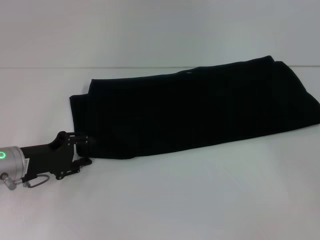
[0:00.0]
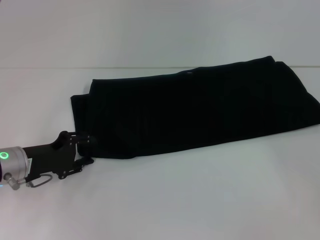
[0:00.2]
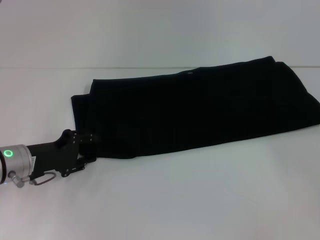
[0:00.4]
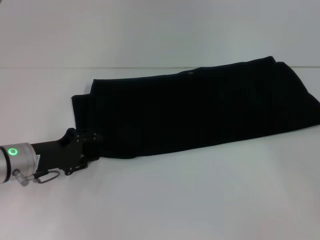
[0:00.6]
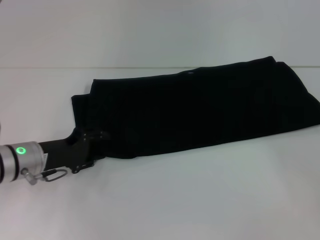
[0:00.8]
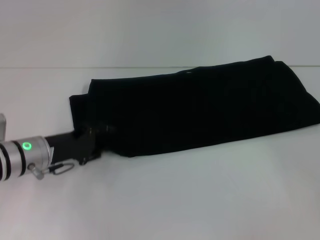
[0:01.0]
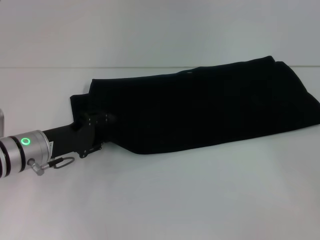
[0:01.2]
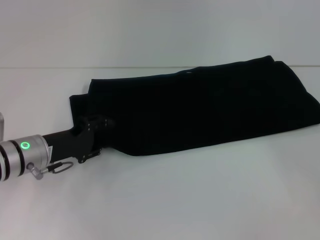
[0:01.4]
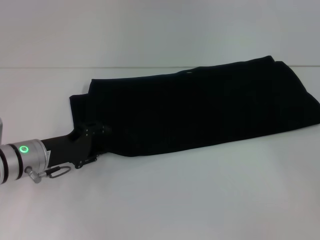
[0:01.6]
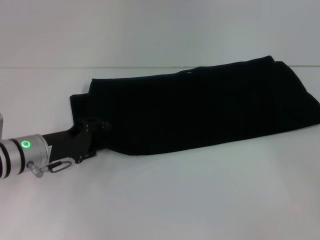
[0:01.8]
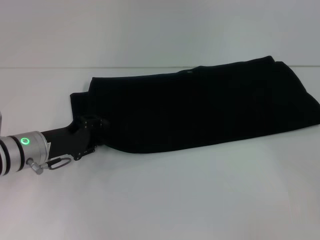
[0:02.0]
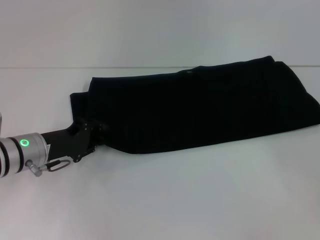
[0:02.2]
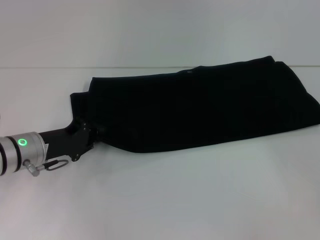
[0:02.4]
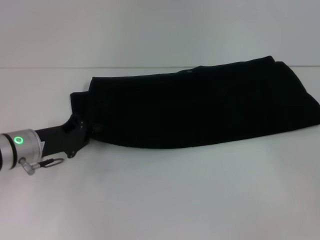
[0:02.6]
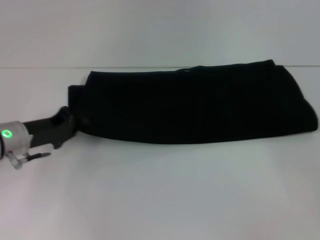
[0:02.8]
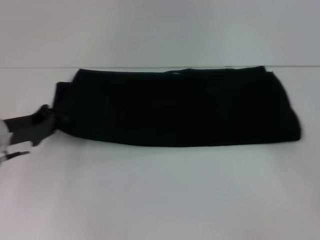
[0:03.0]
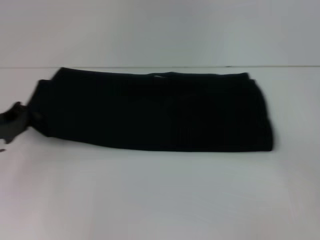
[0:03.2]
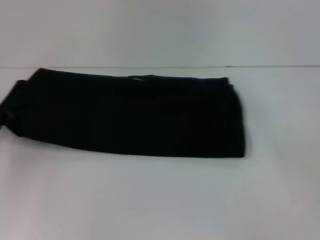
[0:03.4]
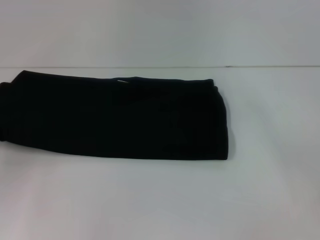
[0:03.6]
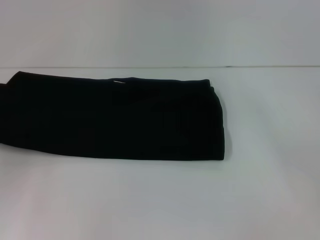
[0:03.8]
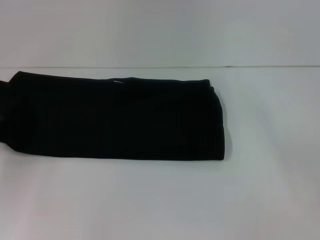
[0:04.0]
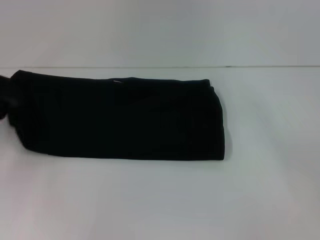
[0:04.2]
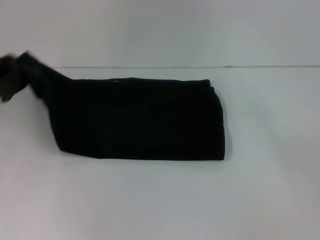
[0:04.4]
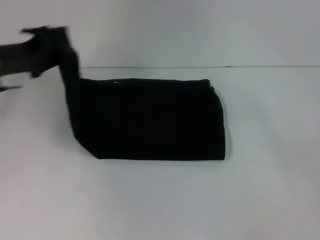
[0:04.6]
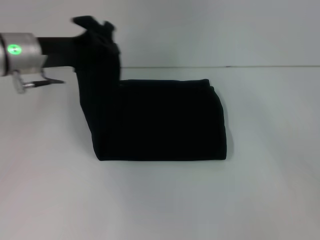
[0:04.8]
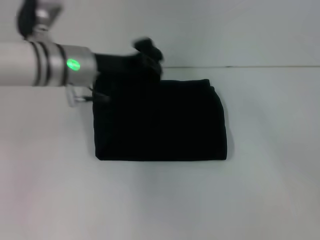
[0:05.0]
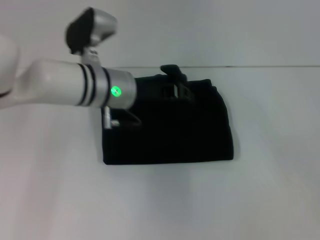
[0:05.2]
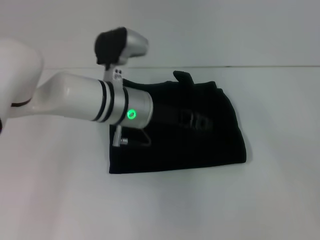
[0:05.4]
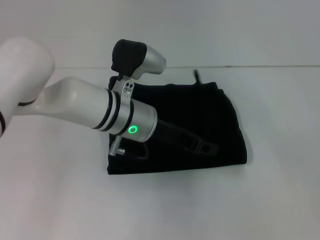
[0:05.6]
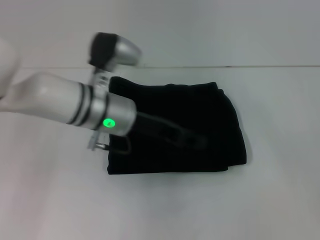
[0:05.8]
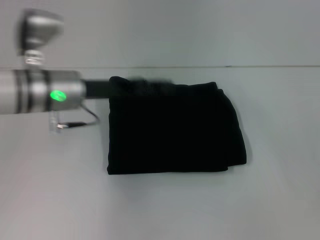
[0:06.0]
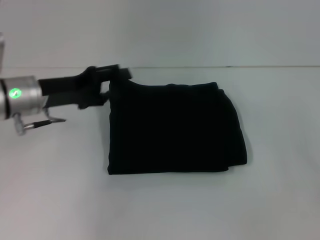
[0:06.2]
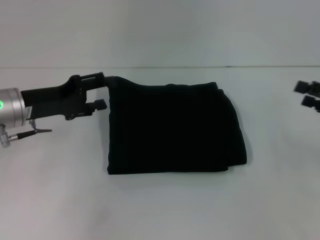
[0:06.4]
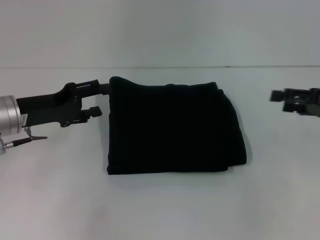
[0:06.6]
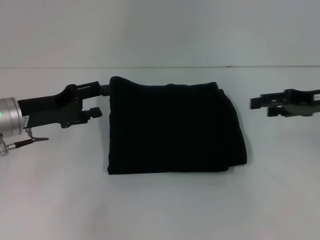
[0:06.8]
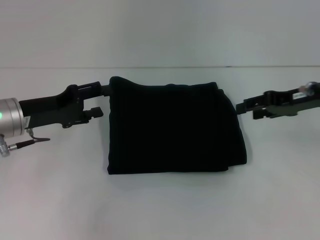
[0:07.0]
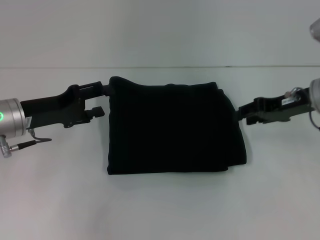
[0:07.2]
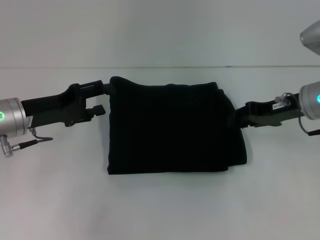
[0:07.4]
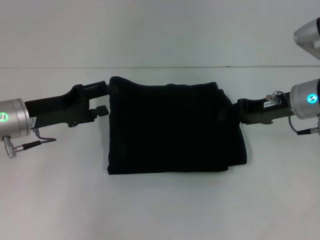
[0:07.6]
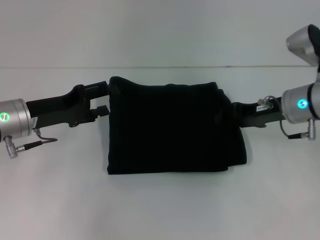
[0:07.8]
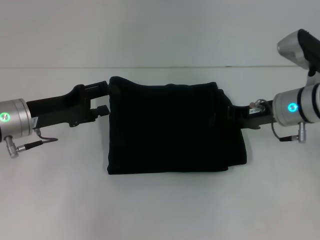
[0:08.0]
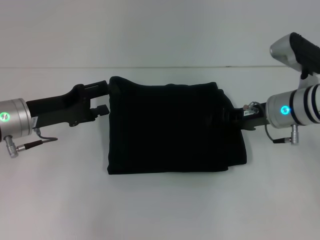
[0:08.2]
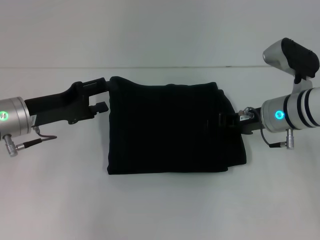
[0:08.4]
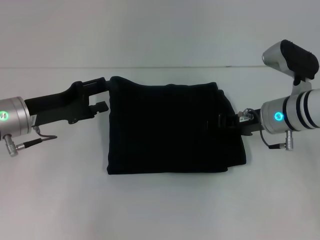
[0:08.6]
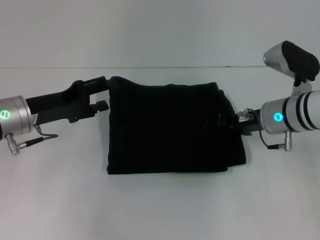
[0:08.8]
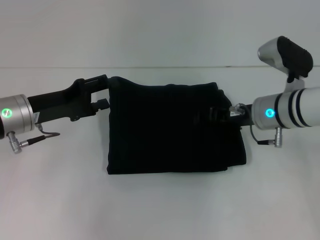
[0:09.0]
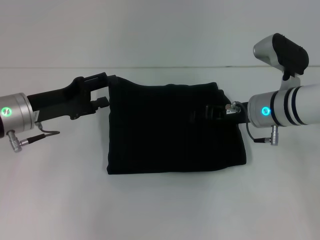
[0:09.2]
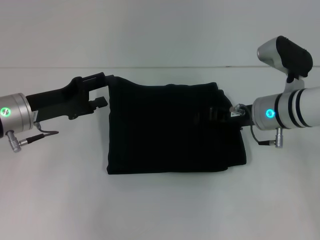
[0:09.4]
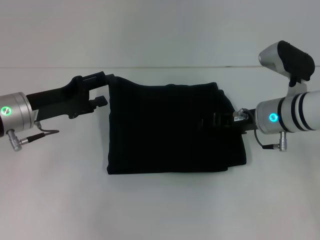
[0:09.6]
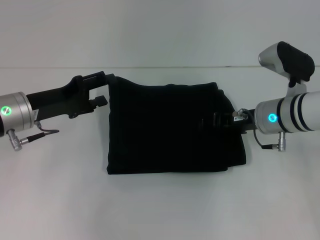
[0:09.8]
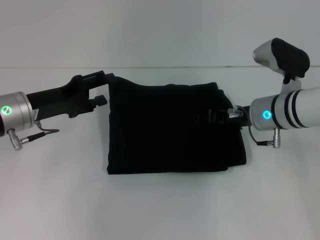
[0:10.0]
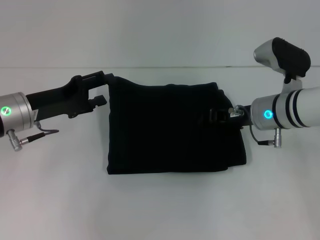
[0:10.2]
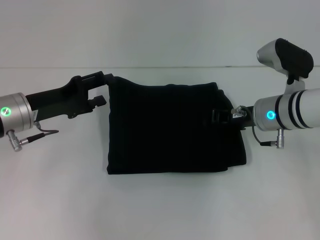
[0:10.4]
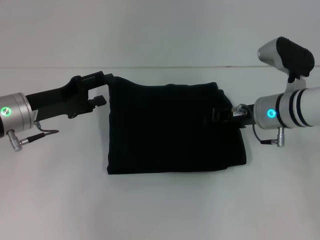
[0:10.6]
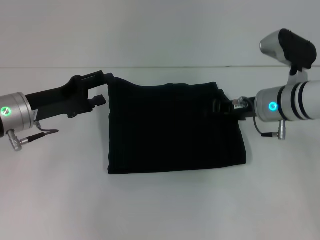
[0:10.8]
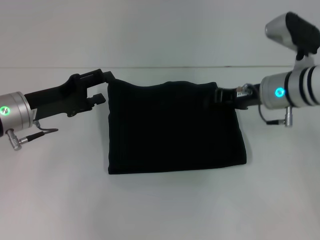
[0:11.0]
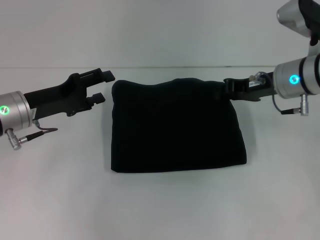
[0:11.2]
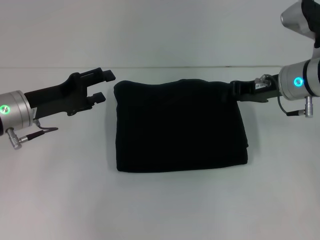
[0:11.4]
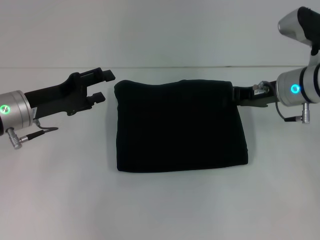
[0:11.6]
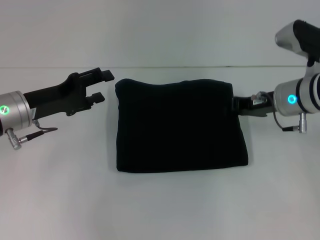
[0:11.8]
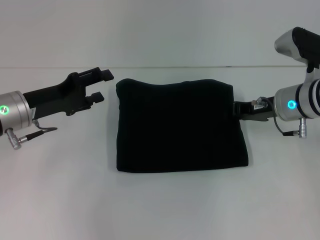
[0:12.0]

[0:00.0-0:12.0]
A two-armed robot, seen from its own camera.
Step, 0:00.0 to 0:06.2: Fold the clothes with your left hand.
0:00.0 to 0:01.6: The grippers move only a little.
0:01.6 to 0:03.0: The left gripper heads to the left, covering approximately 5 cm, and closes.
0:03.0 to 0:04.4: The left gripper goes some 5 cm upward.
0:04.4 to 0:06.0: The left gripper shifts approximately 15 cm to the right, and opens.
0:06.0 to 0:07.6: The left gripper shifts some 5 cm to the left; the right gripper is displaced to the left and forward by approximately 20 cm, and closes its fingers.
0:07.6 to 0:09.0: The right gripper shifts approximately 5 cm to the left.
0:09.0 to 0:10.4: Neither gripper changes place.

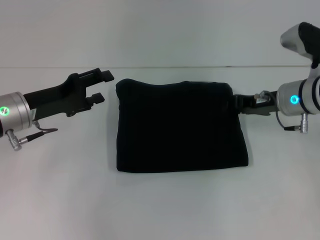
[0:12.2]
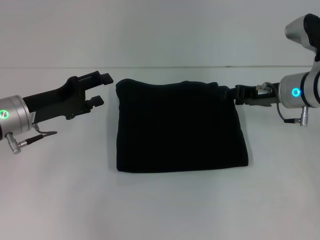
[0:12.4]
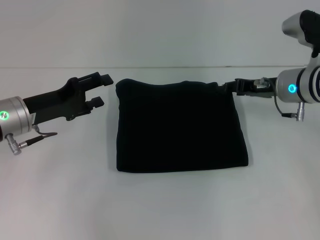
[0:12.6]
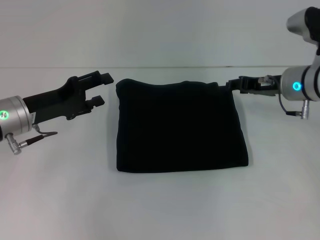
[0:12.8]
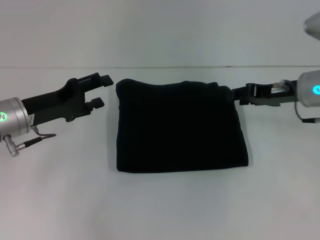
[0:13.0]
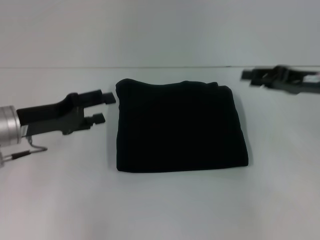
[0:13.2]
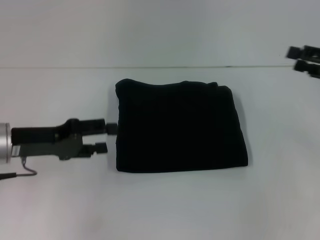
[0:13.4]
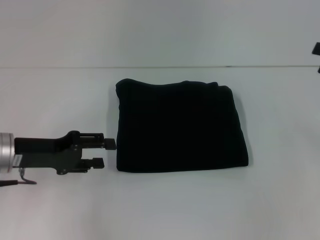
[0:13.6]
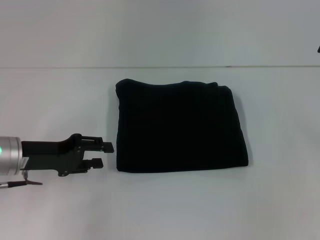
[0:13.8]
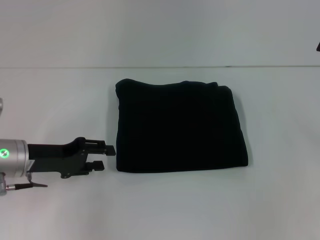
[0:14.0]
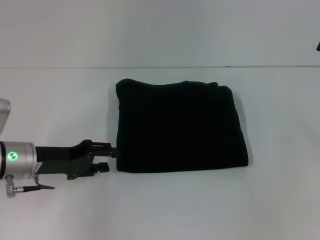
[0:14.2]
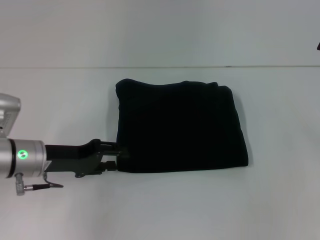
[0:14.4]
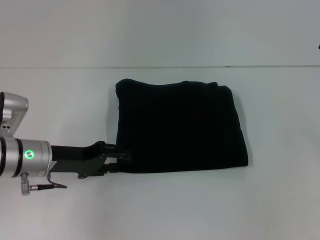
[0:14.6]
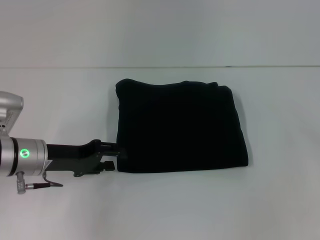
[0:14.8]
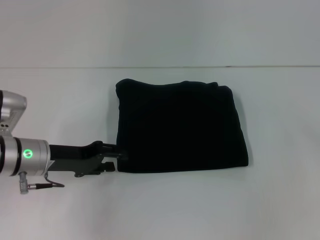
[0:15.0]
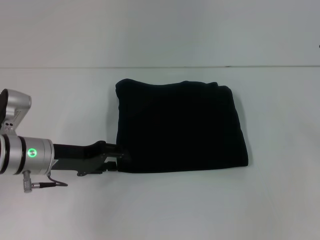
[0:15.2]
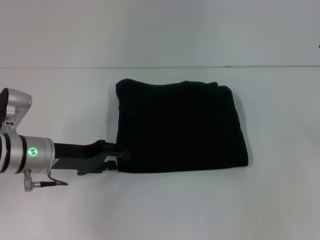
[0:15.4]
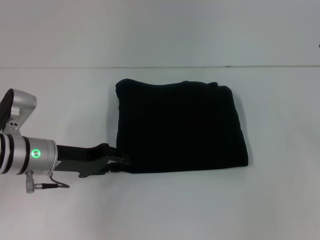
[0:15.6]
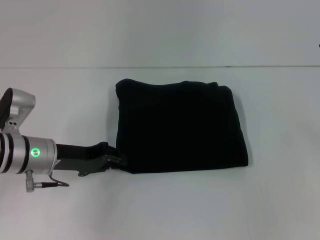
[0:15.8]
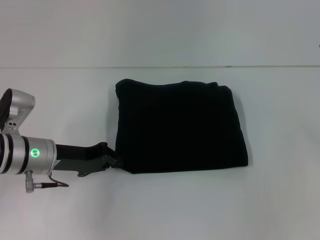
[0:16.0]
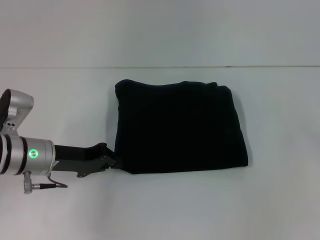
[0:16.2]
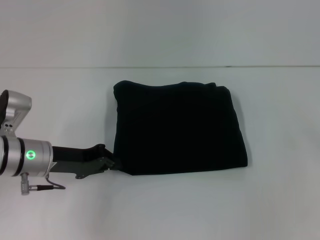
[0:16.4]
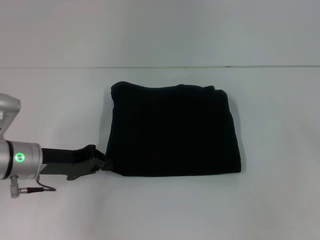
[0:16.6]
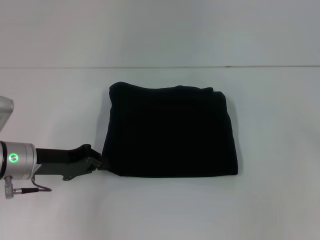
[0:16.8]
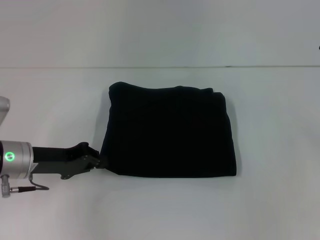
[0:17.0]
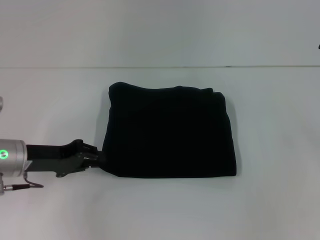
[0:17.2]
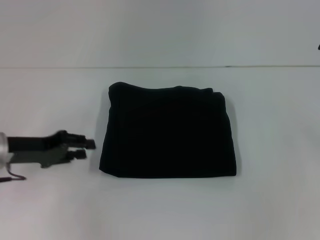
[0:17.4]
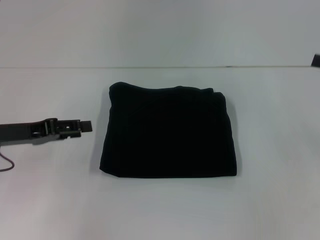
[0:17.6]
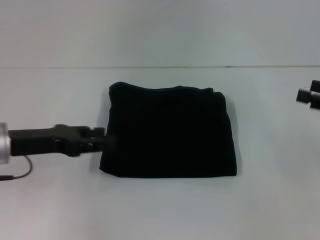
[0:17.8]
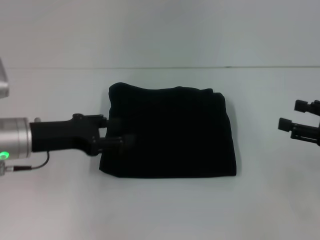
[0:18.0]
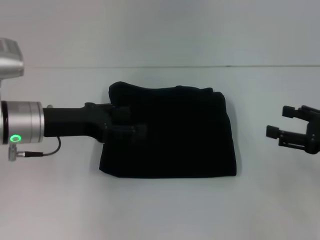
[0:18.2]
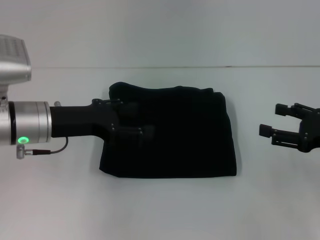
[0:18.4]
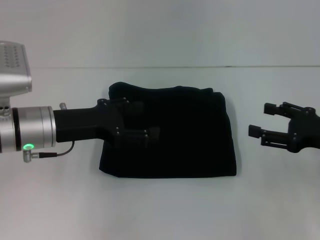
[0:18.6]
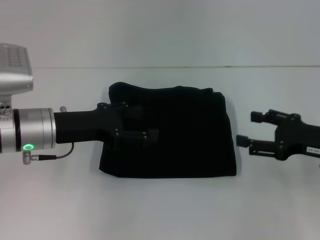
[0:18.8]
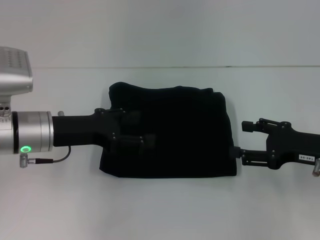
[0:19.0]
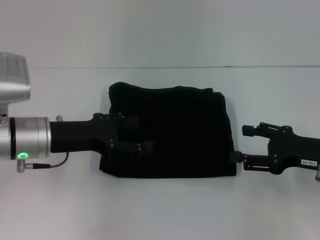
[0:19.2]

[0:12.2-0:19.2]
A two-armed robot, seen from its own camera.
0:12.2 to 0:13.6: The right gripper travels to the right and backward by roughly 20 cm, and opens.
0:13.6 to 0:15.0: The left gripper moves about 5 cm.
0:15.0 to 0:16.4: The left gripper closes up.
0:16.4 to 0:17.8: The left gripper moves upward, about 5 cm, and opens up; the right gripper changes place by roughly 5 cm.
0:17.8 to 0:19.2: The left gripper goes approximately 5 cm to the right. Meanwhile the right gripper heads to the left, covering some 10 cm.

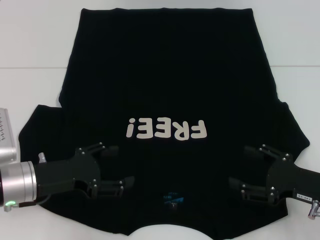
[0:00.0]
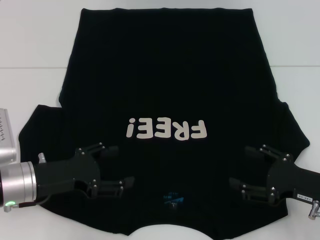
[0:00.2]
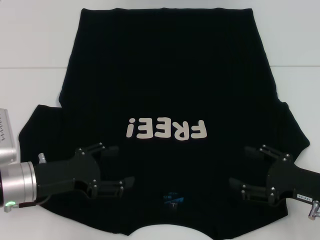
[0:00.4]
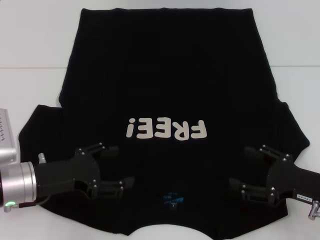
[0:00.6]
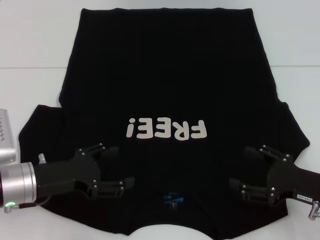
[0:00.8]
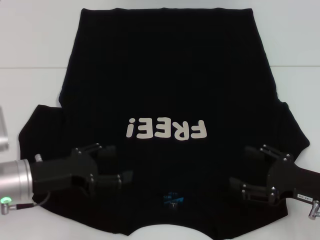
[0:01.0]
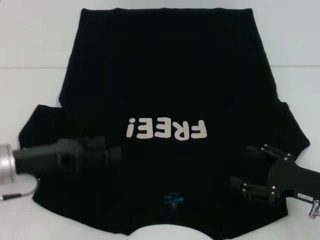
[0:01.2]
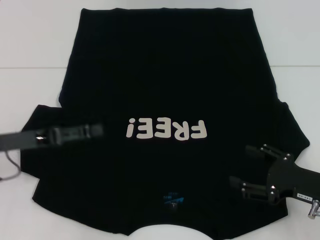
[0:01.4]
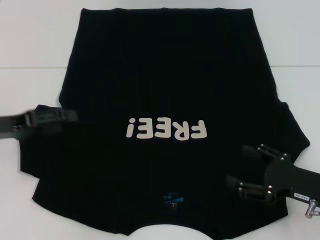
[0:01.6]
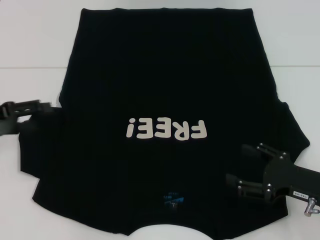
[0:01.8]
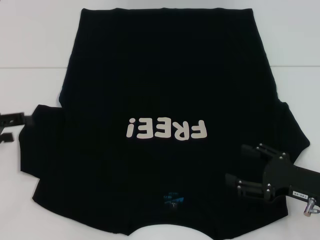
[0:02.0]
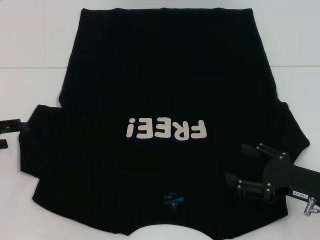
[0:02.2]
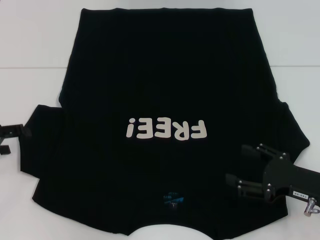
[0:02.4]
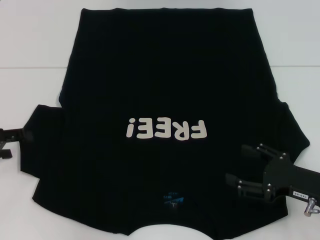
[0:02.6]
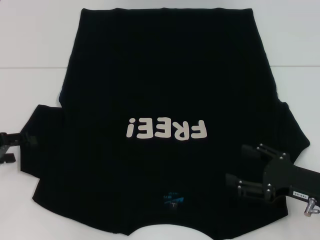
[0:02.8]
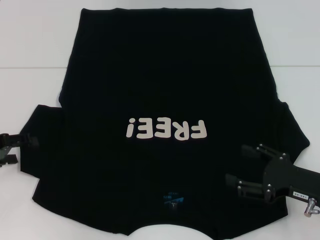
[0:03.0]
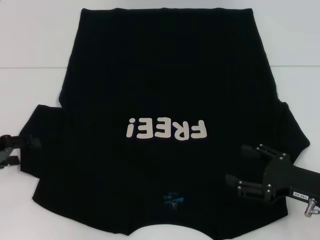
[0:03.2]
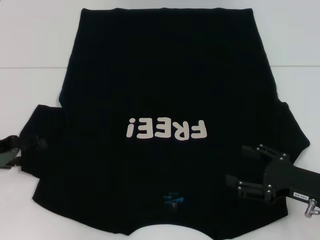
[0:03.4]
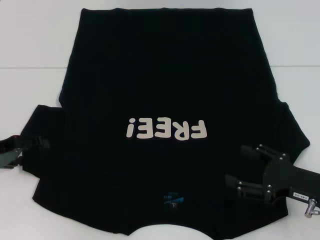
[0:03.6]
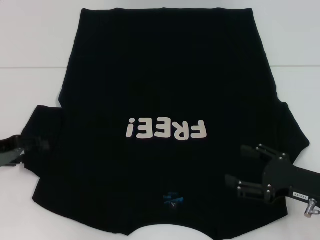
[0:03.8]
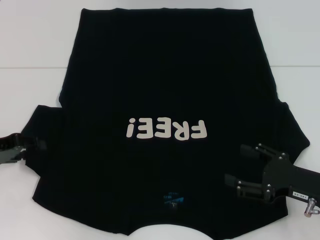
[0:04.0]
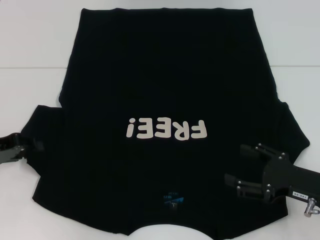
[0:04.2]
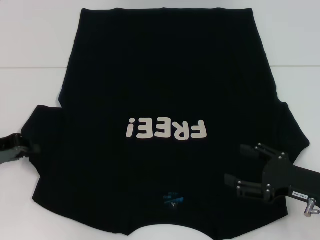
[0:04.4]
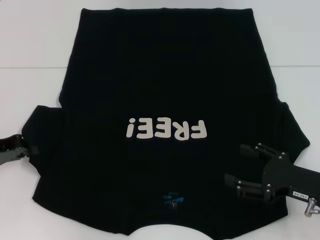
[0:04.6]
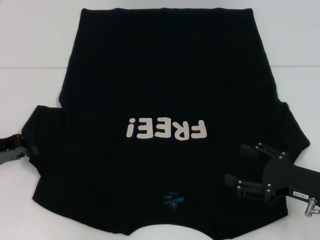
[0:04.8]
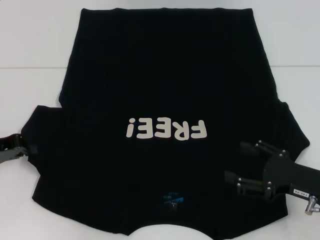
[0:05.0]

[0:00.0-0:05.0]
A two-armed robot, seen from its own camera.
0:00.0 to 0:01.6: The left gripper goes roughly 10 cm to the left and upward.
0:01.6 to 0:03.4: The left gripper moves approximately 5 cm.
0:03.4 to 0:05.0: The left gripper closes up.
